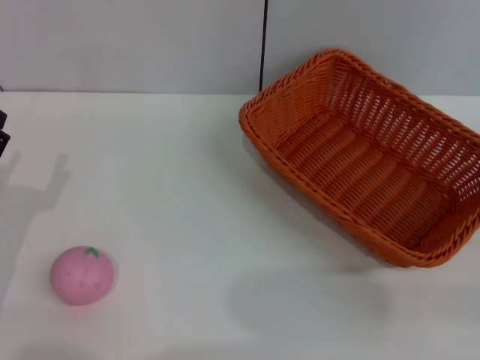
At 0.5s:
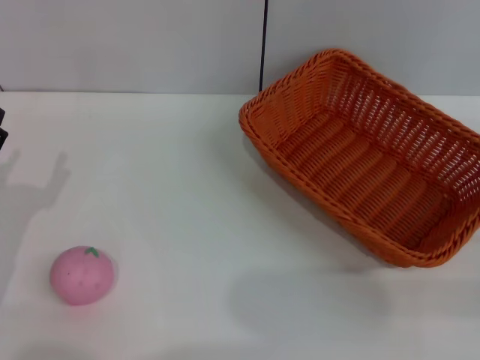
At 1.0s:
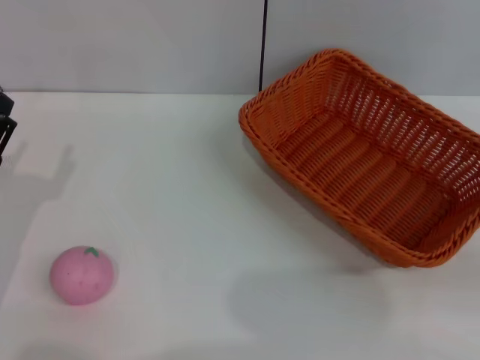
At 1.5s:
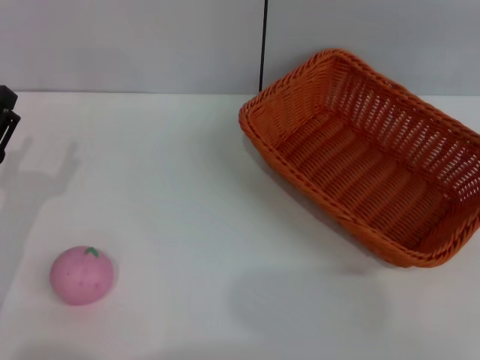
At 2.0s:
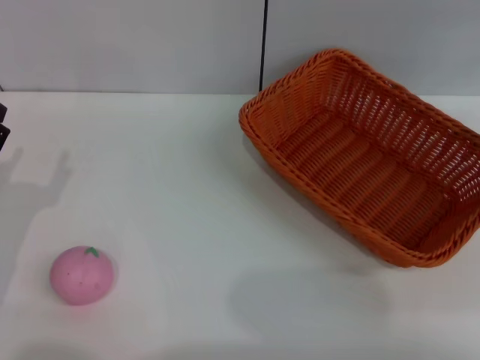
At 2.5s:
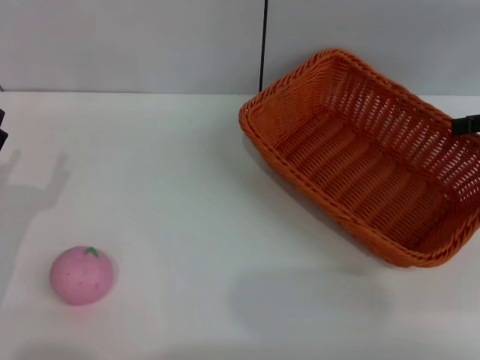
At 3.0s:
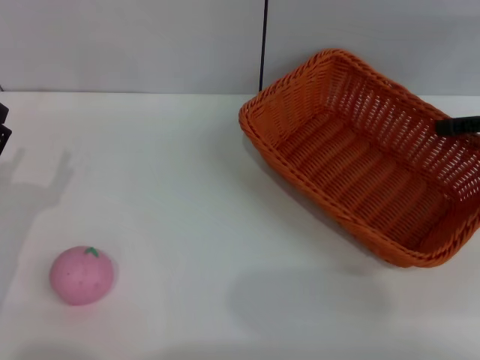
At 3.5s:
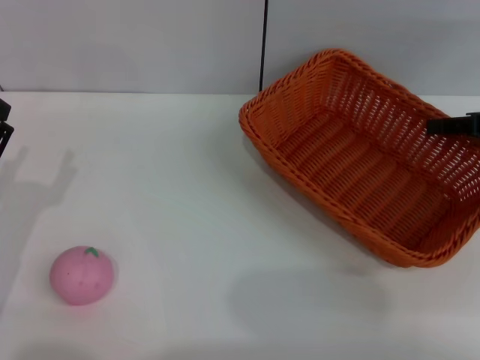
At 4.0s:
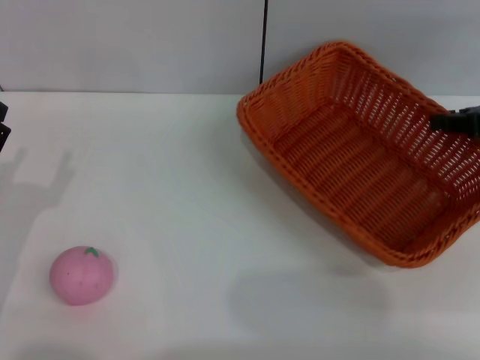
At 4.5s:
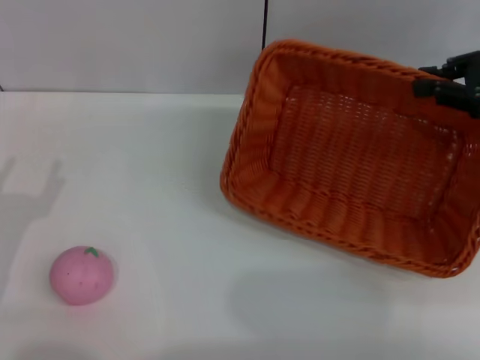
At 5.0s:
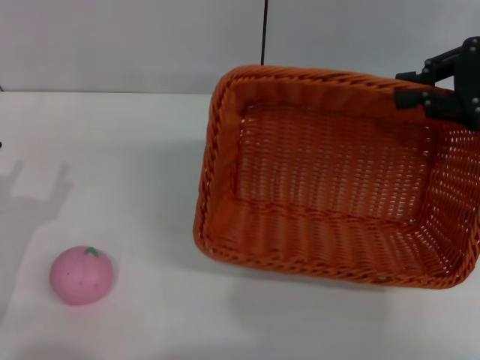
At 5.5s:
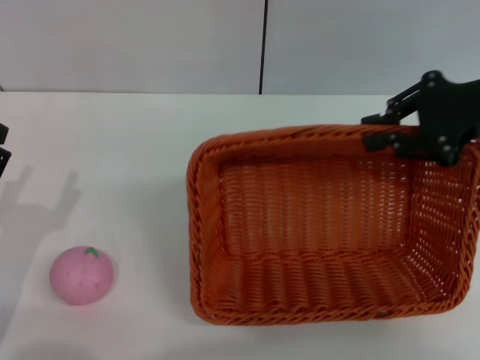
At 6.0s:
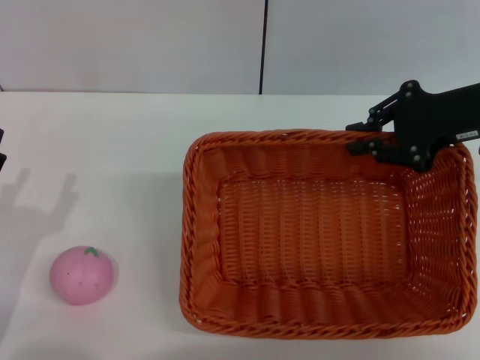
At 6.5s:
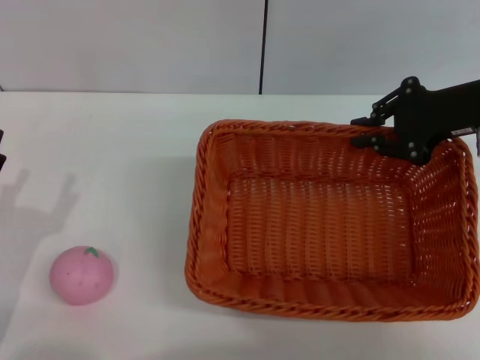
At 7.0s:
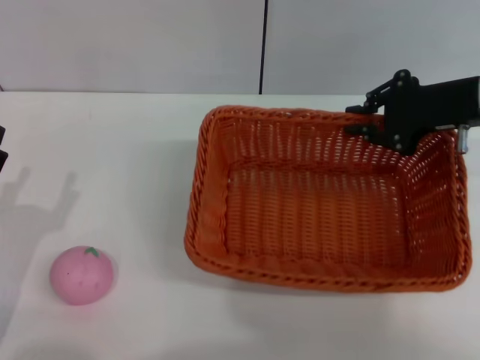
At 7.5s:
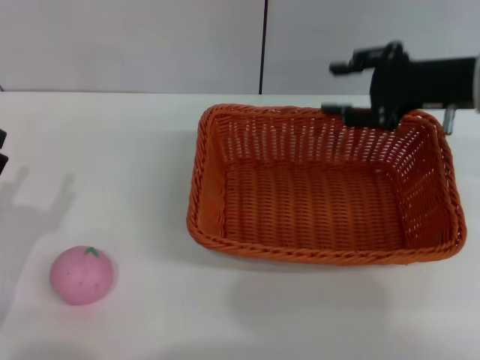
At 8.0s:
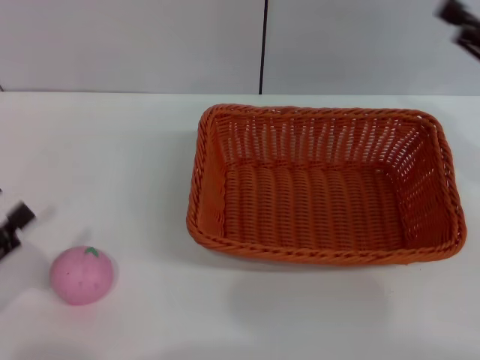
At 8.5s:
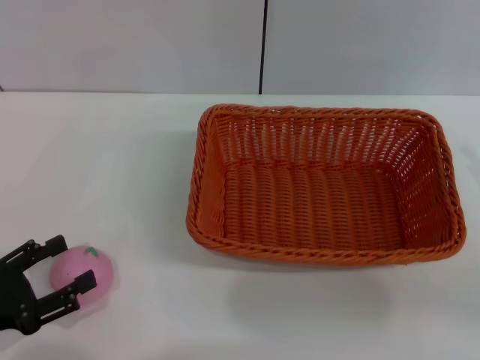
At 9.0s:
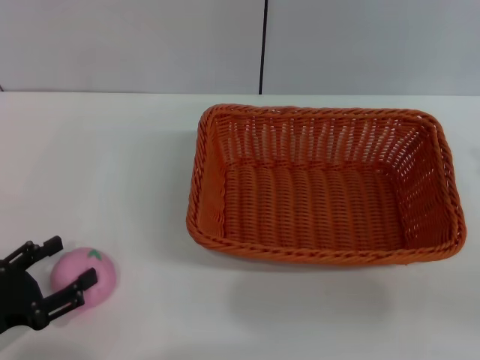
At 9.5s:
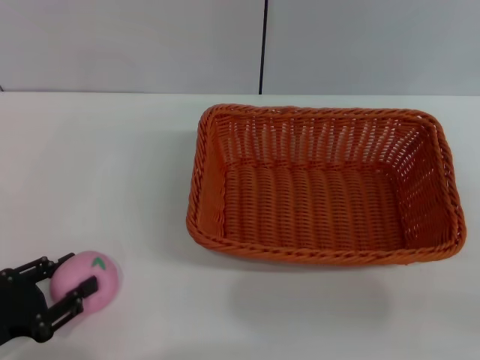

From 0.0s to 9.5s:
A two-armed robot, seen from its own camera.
Step, from 0.0s to 4.0s: Pick up the light basket with the right gripper.
Step, from 4.5s to 7.0s: Place the light basket in the center of view with the right gripper.
From 2.0s to 4.0s: The right gripper moves downward, about 5 cm, and closes its fingers.
From 4.0s to 5.5s: The right gripper travels to the left by approximately 5 cm.
From 5.5s to 7.5s: The right gripper opens up.
From 7.5s to 9.5s: The right gripper heads backward and to the right, covering approximately 20 cm, while the left gripper closes.

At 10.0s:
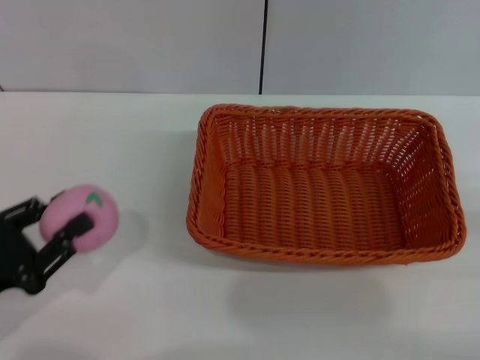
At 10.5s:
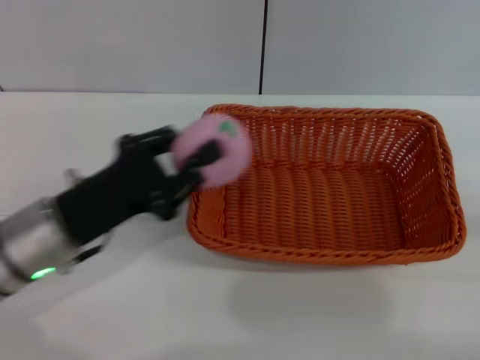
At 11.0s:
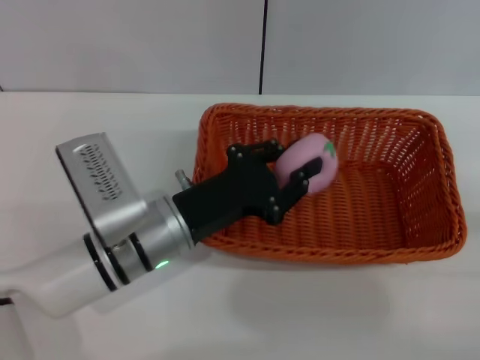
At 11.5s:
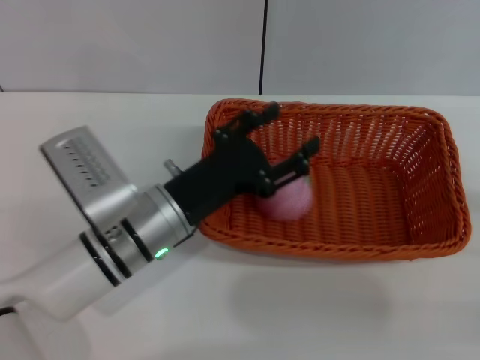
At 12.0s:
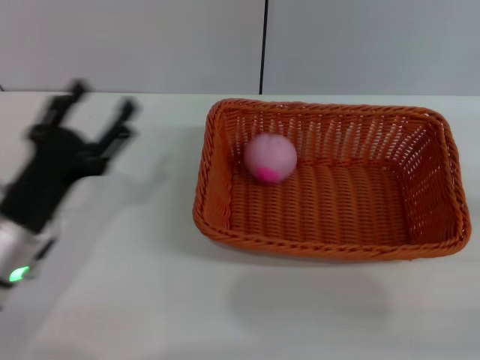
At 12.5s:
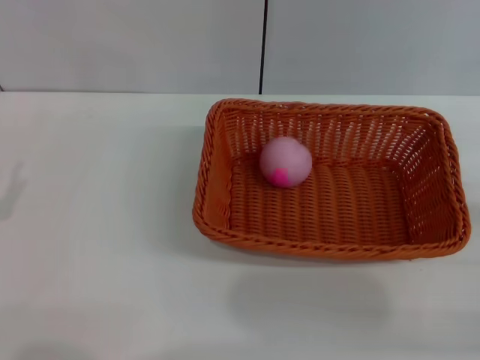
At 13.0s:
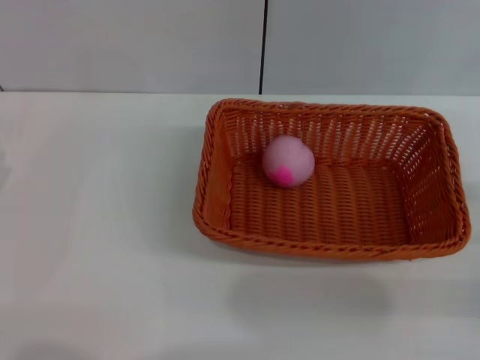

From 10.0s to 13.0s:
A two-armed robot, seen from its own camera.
Step, from 10.5s to 11.5s: Place the peach into the basket with the left gripper.
From 10.0s to 11.5s: The left gripper is displaced to the right and forward by some 20 cm, and opens up.
From 11.5s to 13.0s: The left gripper travels to the left by approximately 25 cm.

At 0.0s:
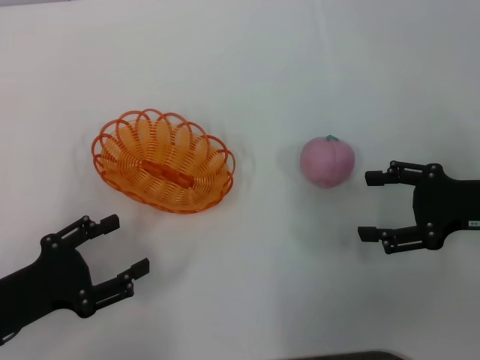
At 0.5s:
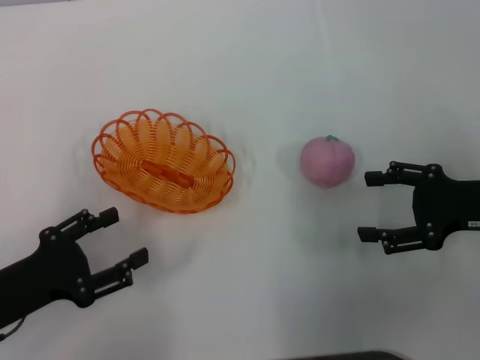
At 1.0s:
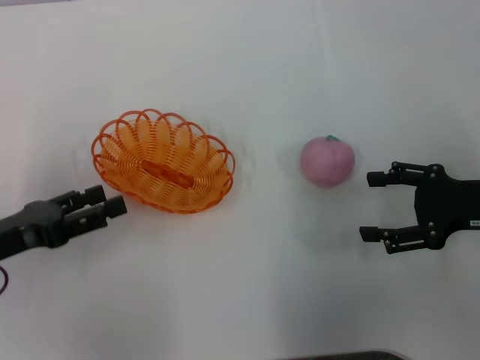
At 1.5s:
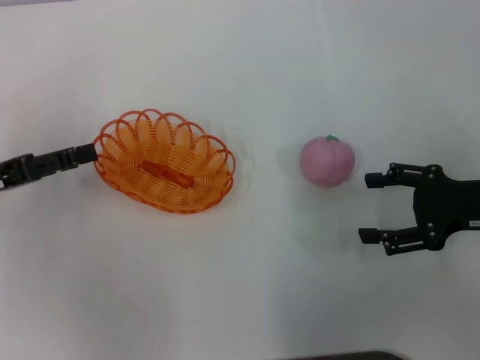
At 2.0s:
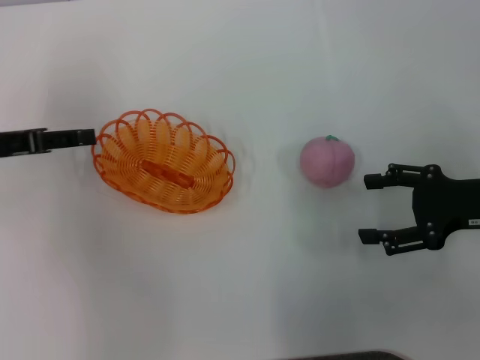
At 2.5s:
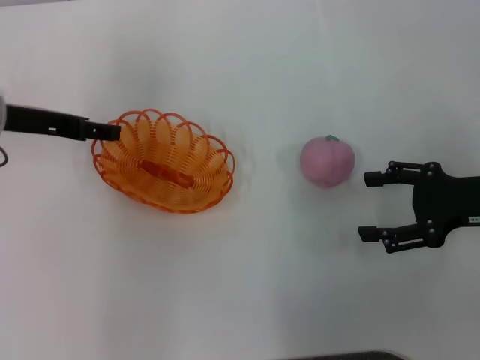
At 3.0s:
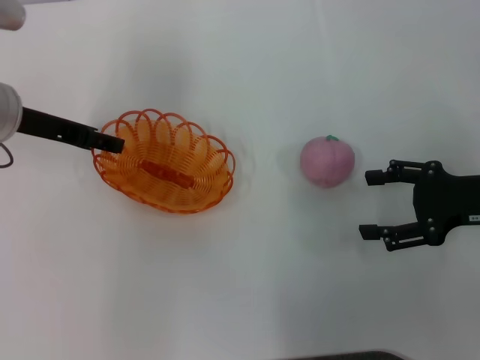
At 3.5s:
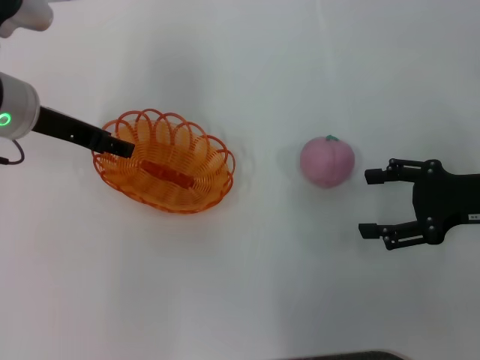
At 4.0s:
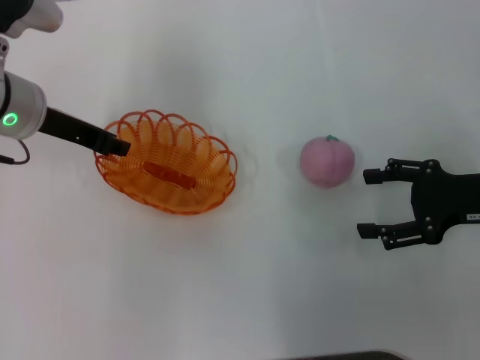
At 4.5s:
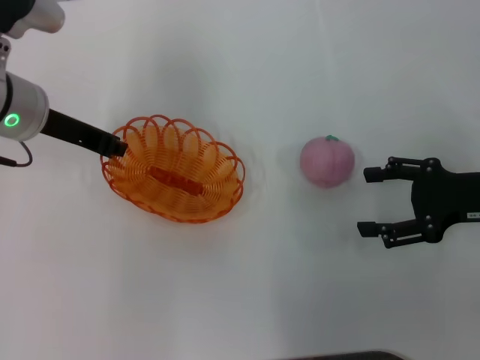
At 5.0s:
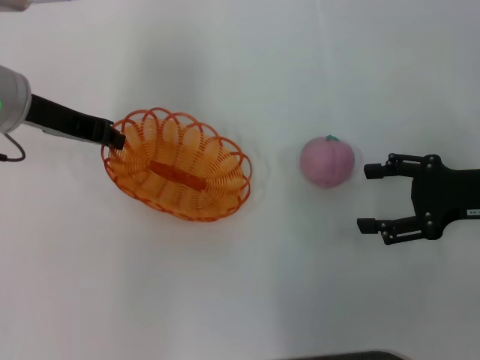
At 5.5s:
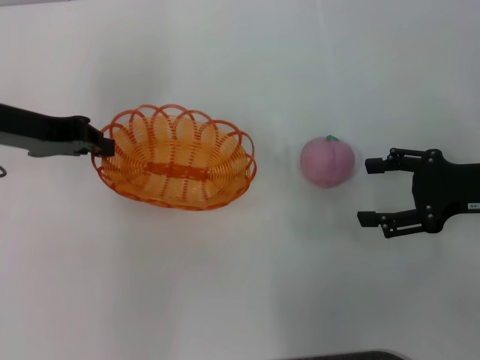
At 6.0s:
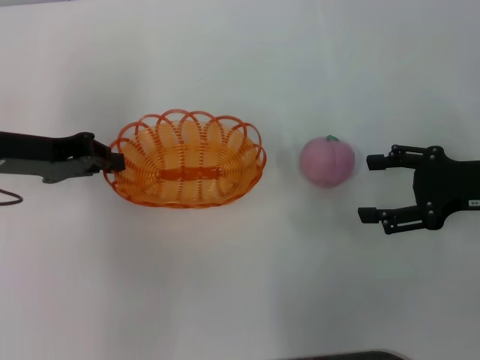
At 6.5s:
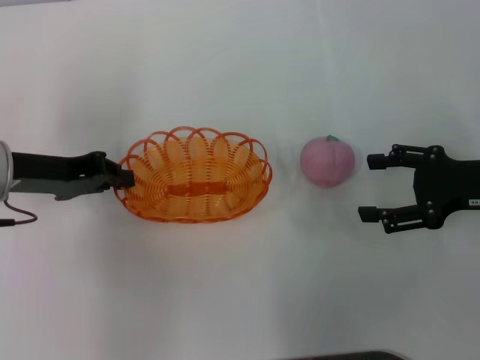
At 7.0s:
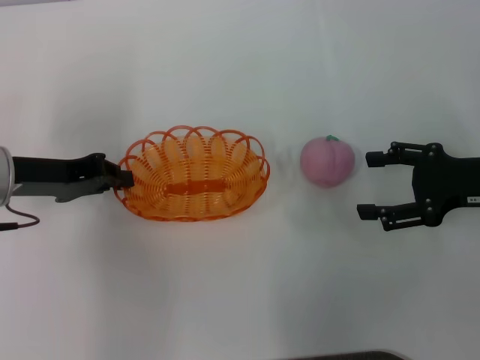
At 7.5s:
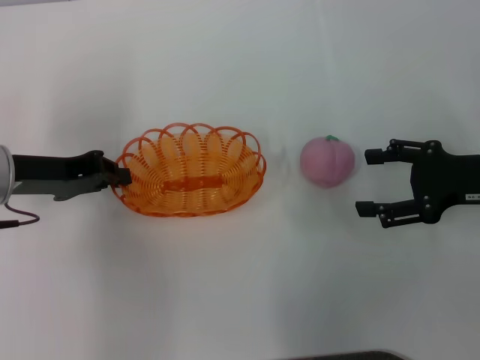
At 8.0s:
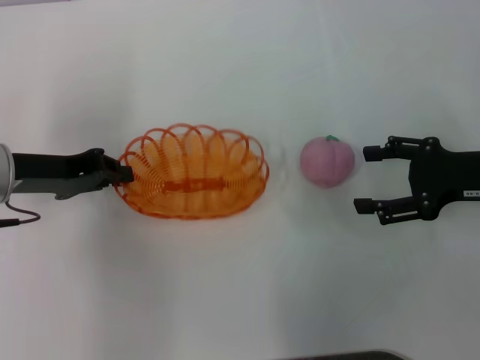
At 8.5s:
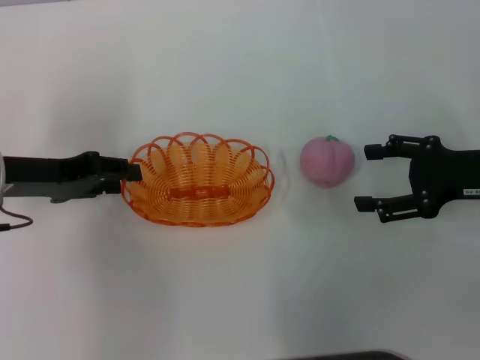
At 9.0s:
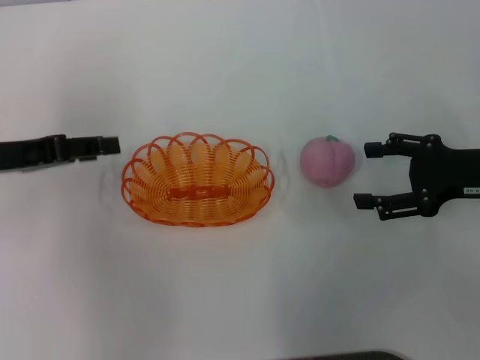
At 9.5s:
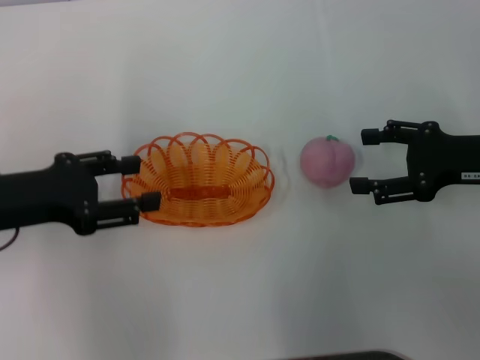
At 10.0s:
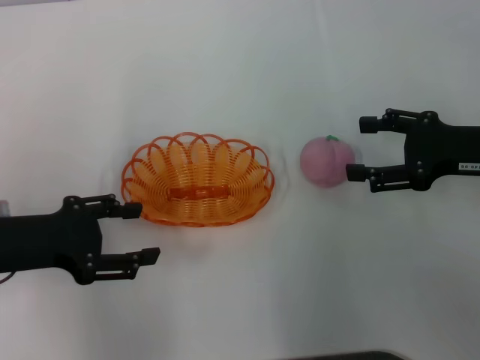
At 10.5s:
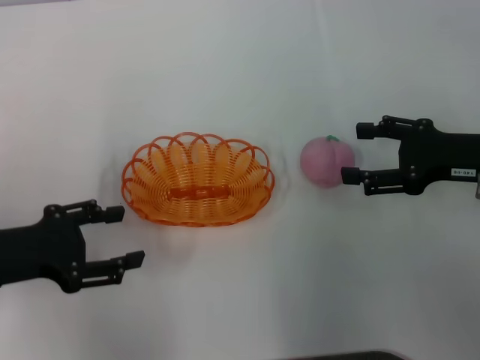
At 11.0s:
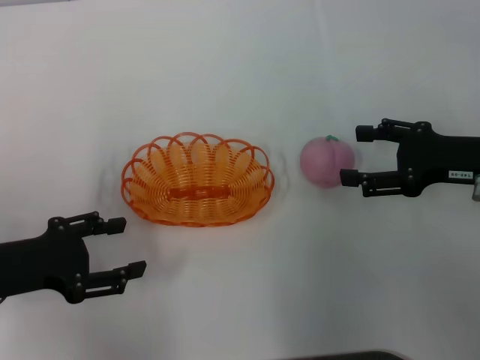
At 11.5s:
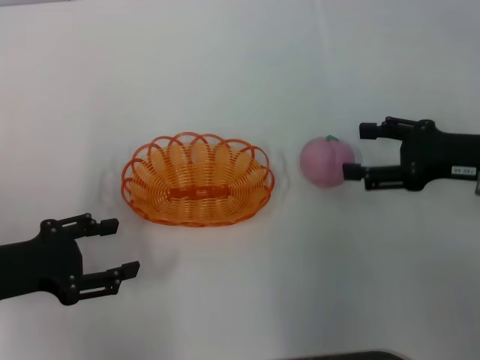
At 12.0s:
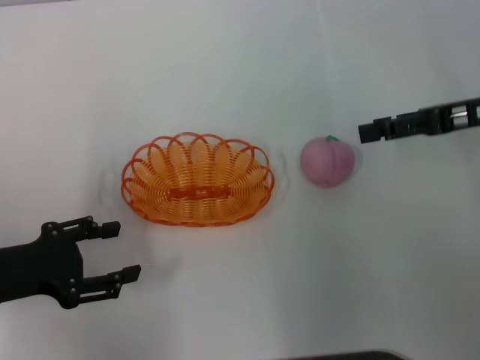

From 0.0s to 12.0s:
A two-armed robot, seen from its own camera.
Step, from 0.0s to 4.5s: Pick up the basket with the left gripper.
Step, from 5.5s to 9.0s: Place the basket in the center of view with the left gripper.
From 0.0s to 2.0s: The left gripper goes approximately 15 cm forward and upward.
From 2.0s to 4.0s: The left gripper shifts approximately 10 cm to the right.
From 4.0s to 6.0s: The left gripper moves to the left, about 5 cm, and closes up.
From 6.0s to 8.0s: The grippers stay close to where they were, moving slightly.
From 8.0s to 10.0s: The left gripper goes approximately 5 cm backward, and opens up.
From 10.0s to 12.0s: The right gripper ends up some 5 cm from where it was.

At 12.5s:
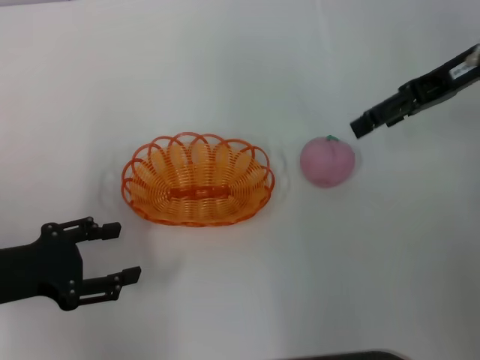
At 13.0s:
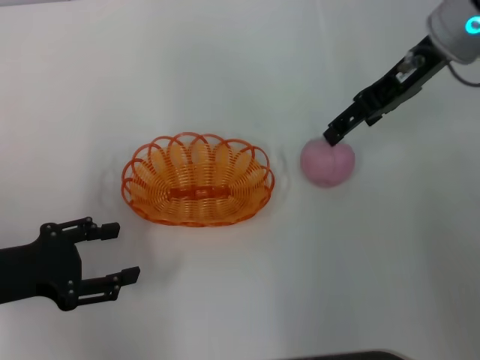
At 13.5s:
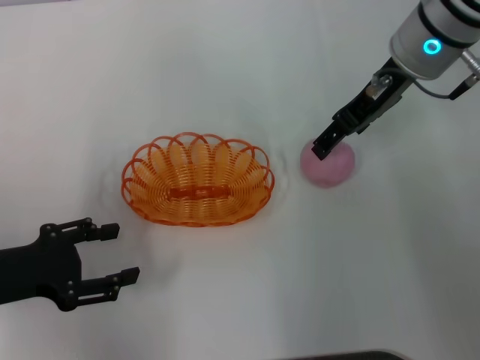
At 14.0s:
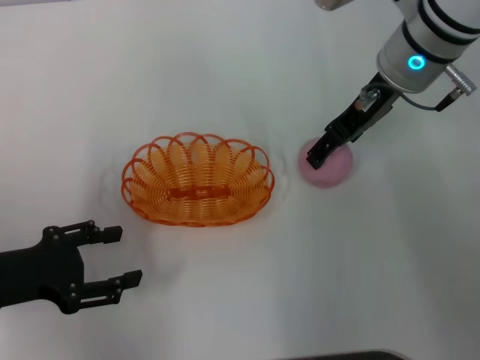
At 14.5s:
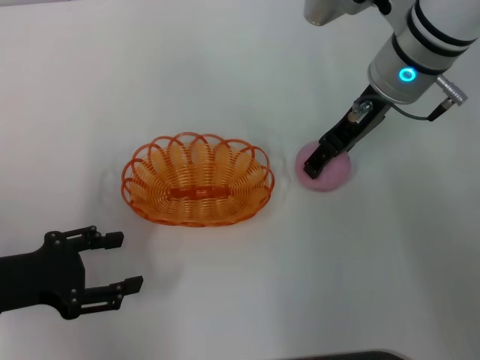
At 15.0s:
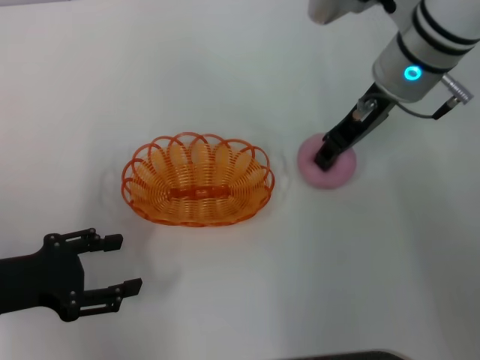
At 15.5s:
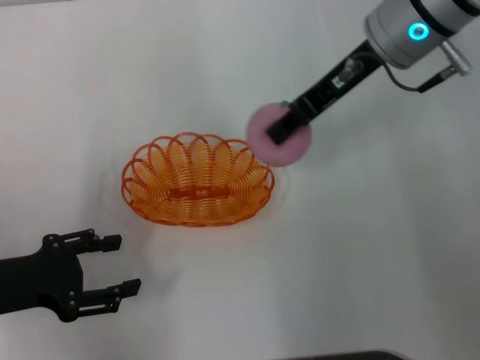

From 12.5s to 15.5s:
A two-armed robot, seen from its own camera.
Step, from 12.5s to 15.0s: Pick up the peach with the right gripper.
From 12.5s to 14.0s: The right gripper shifts some 10 cm to the left.
From 14.0s to 15.5s: The right gripper closes.
